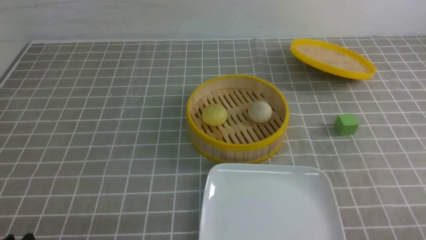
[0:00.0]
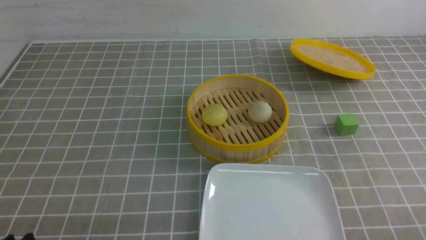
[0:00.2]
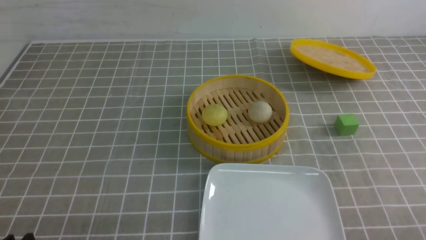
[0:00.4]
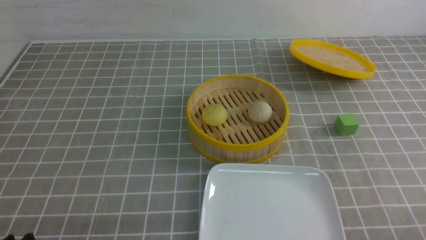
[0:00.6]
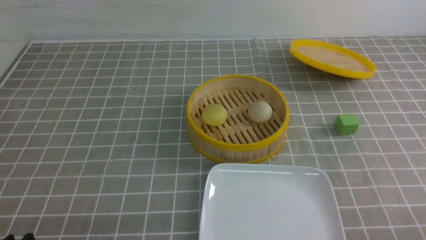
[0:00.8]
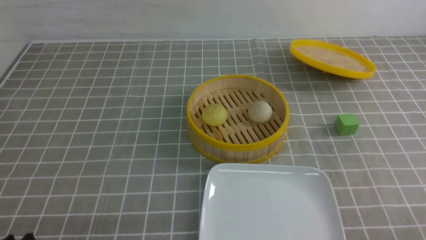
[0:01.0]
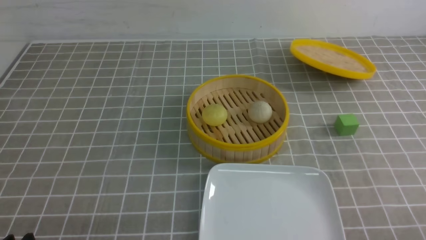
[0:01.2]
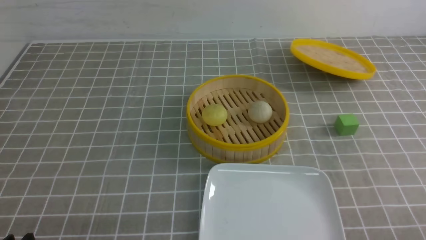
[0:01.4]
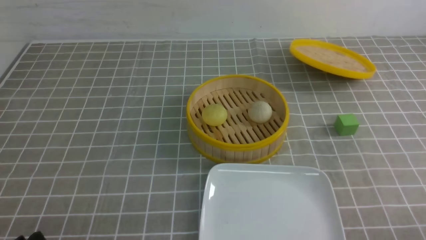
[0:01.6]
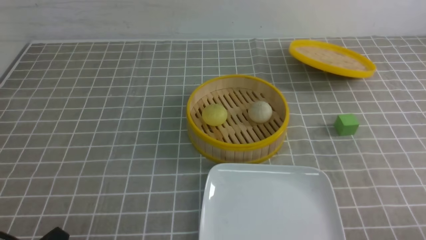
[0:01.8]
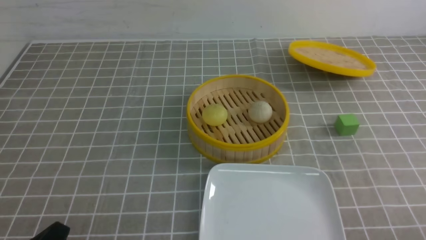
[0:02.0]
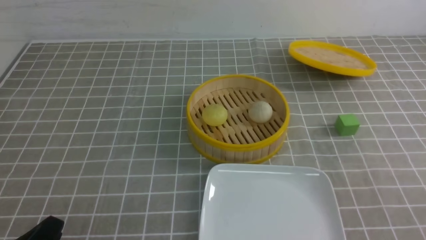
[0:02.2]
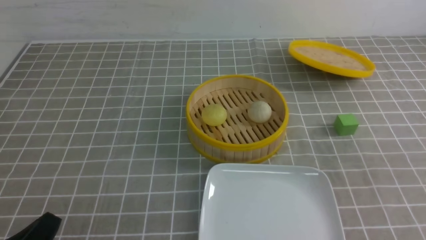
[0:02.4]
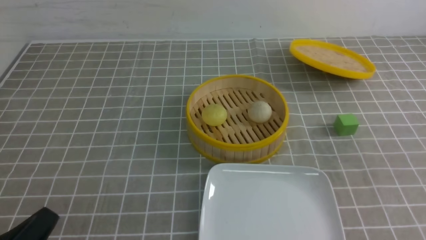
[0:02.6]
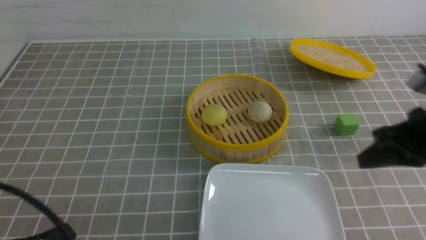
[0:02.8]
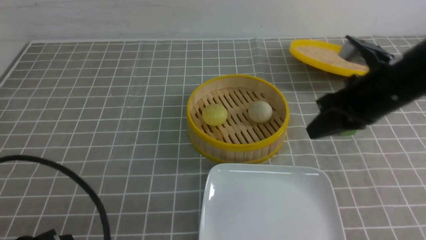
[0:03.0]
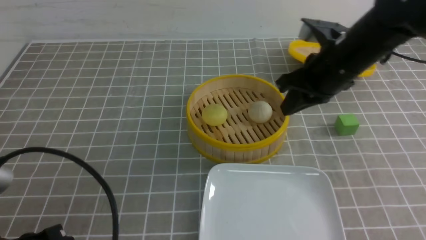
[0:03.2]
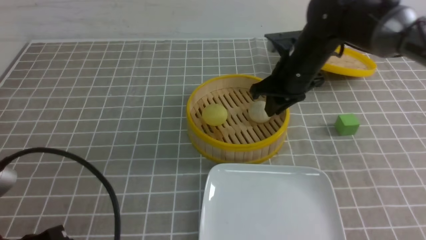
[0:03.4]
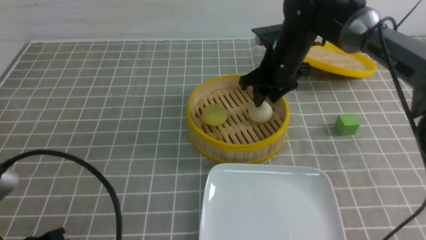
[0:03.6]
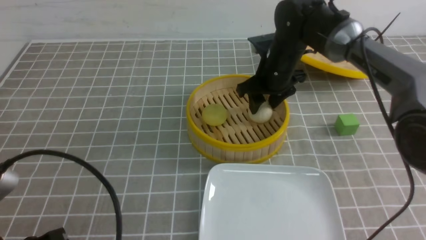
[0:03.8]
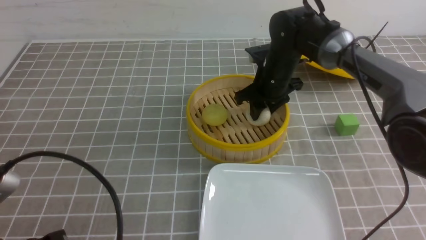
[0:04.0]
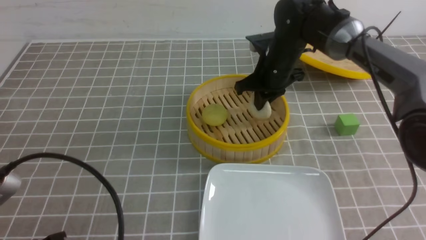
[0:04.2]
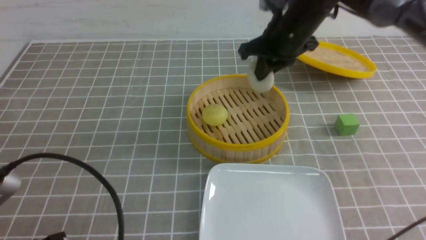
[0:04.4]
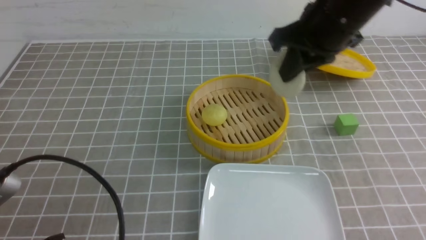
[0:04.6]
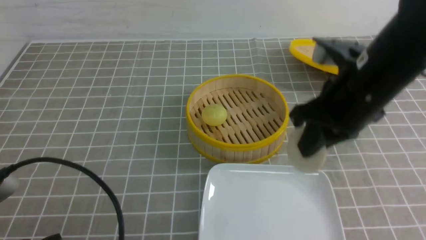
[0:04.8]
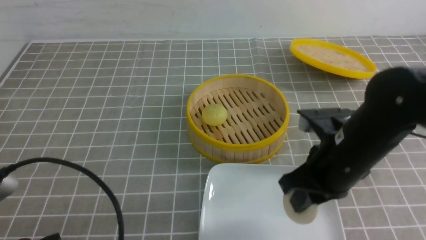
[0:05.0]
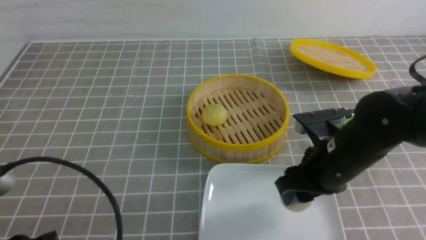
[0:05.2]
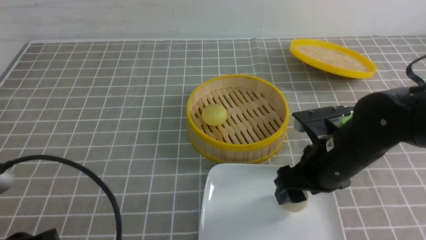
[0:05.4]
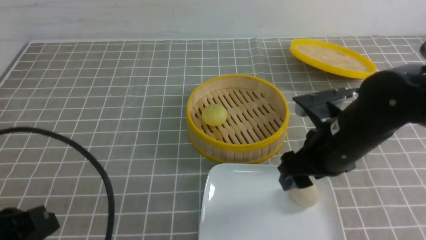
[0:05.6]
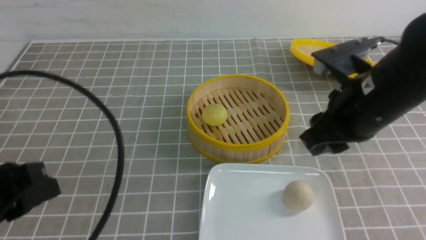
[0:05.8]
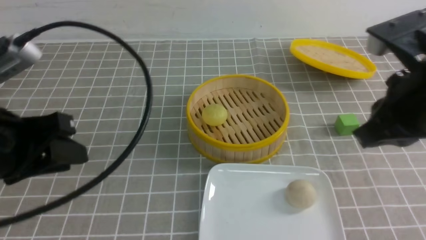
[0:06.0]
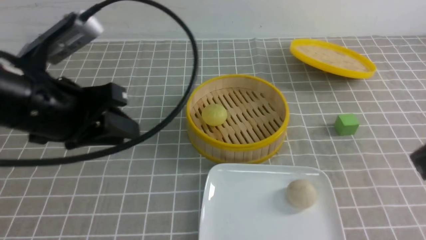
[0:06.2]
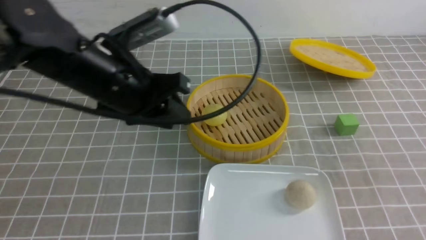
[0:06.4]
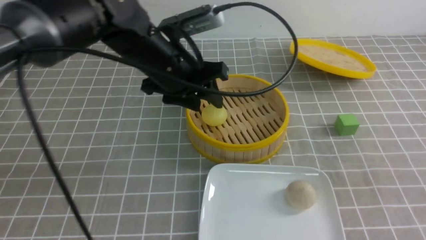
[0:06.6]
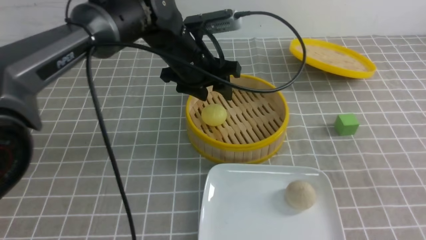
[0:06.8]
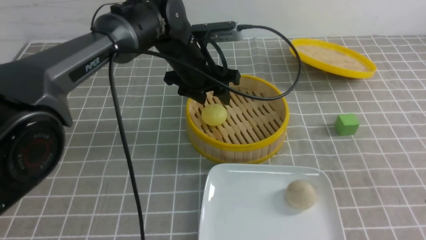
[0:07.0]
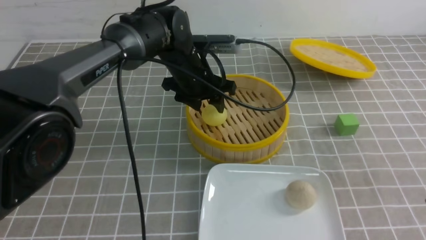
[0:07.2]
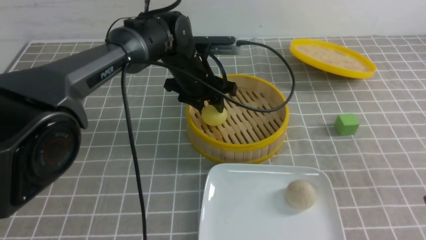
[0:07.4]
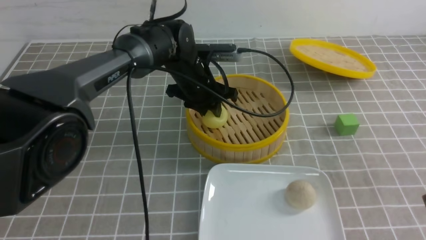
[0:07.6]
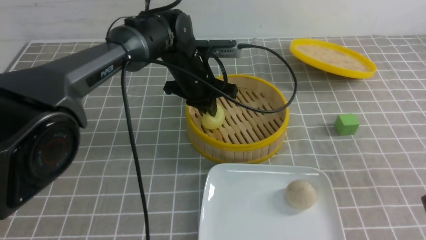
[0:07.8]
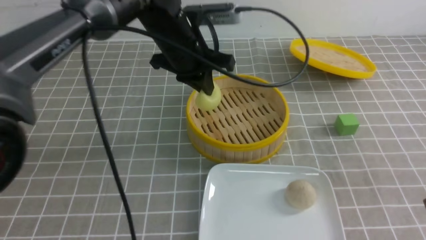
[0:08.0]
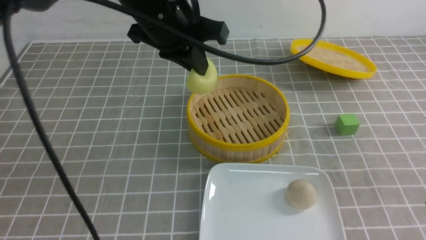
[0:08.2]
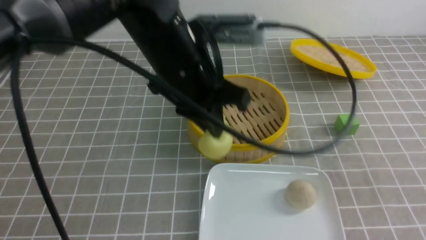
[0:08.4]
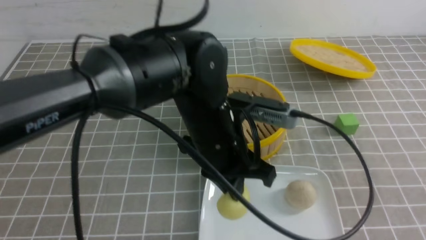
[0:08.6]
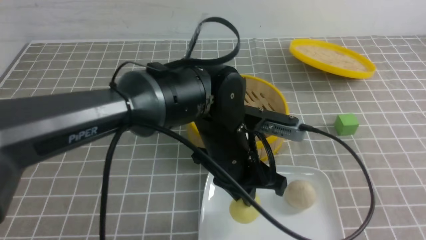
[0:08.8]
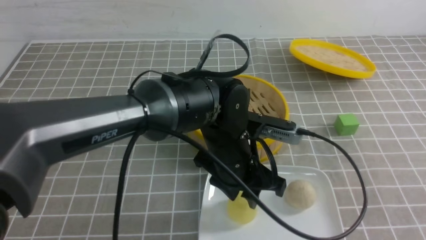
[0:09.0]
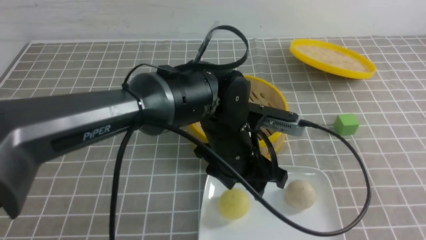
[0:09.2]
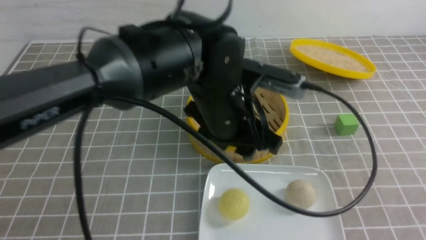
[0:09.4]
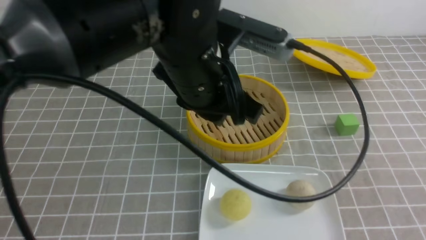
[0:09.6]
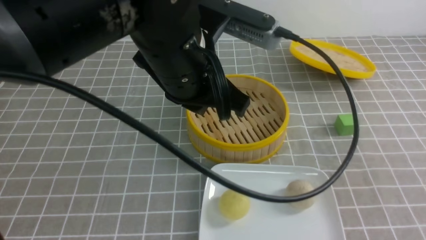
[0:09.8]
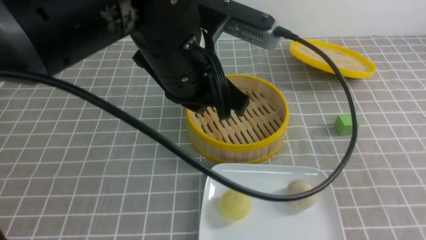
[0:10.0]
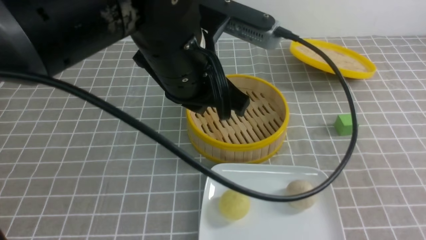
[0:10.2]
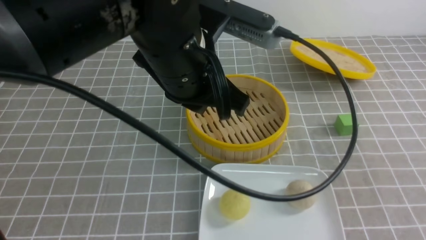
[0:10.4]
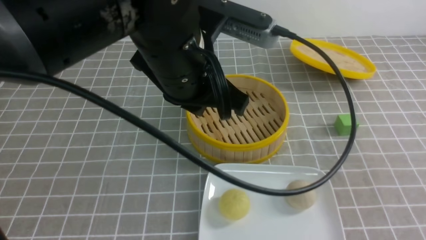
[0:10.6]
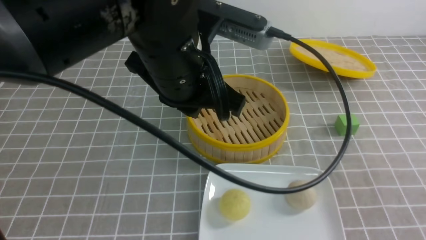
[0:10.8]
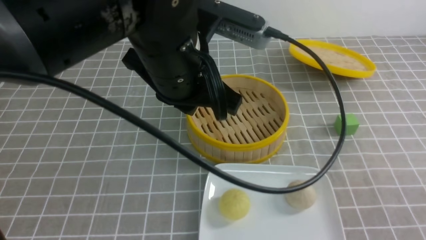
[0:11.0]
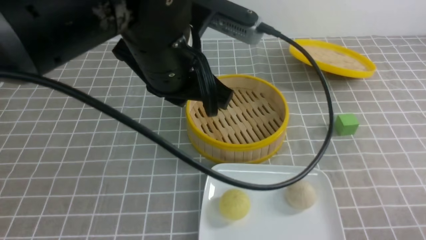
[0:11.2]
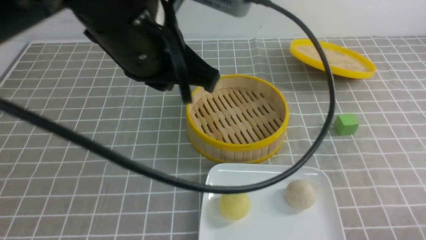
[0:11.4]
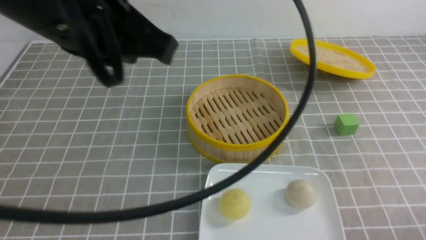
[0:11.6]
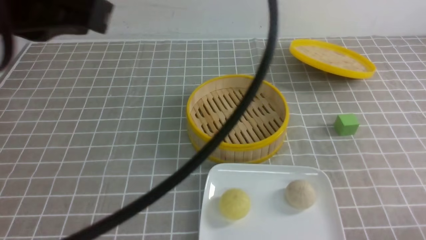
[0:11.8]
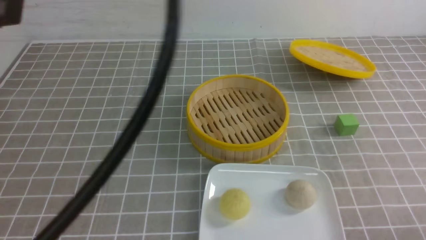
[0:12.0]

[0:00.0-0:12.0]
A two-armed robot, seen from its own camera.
Step, 0:00.0 to 0:04.2: use the right arm to grab the steamed stuffed bun that is closest to it.
Step, 0:04.4 to 0:05.4: use the right arm to put the steamed stuffed bun into the plate.
Step, 0:05.6 to 0:07.8: use the left arm to grab the steamed stuffed bun that is closest to it.
Step, 0:08.0 to 0:09.0: use the left arm to put the steamed stuffed bun into the plate.
0:01.6 to 0:03.0: The left gripper moves upward, roughly 5 cm, and closes up. Meanwhile the right gripper is displaced forward, upward and to the left by approximately 30 cm, and closes.
0:03.0 to 0:04.4: The right gripper moves forward and to the left, some 10 cm, and opens, then closes again.
0:04.4 to 0:06.0: The left gripper moves forward and upward, roughly 15 cm, and opens up. The right gripper travels backward and to the right by roughly 20 cm, and opens, then closes once more.
0:06.0 to 0:07.6: The left gripper heads forward, to the right and downward, covering about 35 cm, and opens, then closes again, while the right gripper travels backward and to the right by about 10 cm.
0:07.6 to 0:09.0: The right gripper is displaced backward and to the right by approximately 10 cm. The left gripper shifts roughly 15 cm backward, and closes, then reopens.
0:09.0 to 0:10.4: The left gripper is displaced upward by roughly 15 cm, and closes its fingers. Meanwhile the right gripper is displaced downward by roughly 5 cm.
0:10.4 to 0:12.0: The left gripper heads to the left, backward and upward, covering roughly 25 cm, while the right gripper is displaced downward by approximately 10 cm.

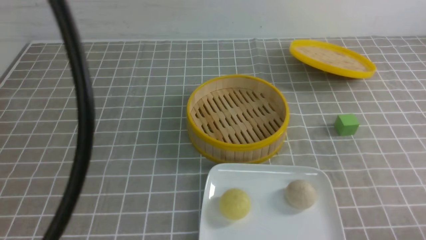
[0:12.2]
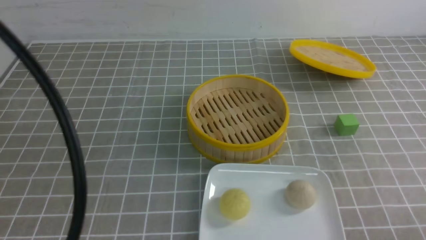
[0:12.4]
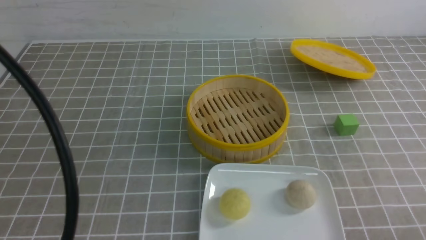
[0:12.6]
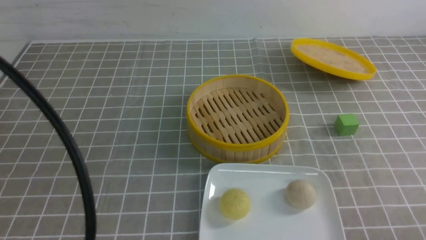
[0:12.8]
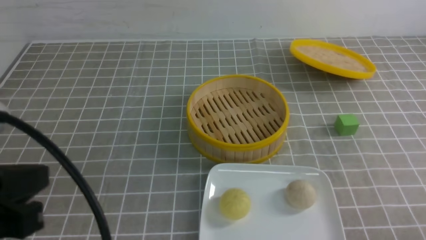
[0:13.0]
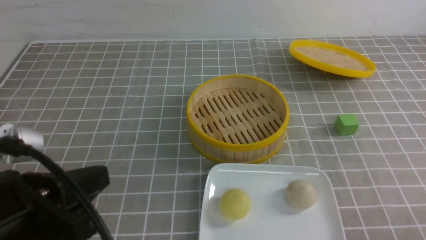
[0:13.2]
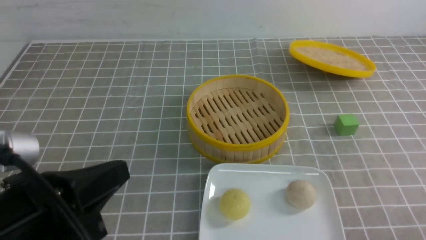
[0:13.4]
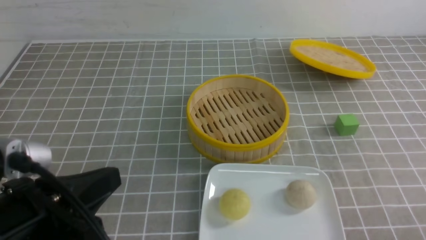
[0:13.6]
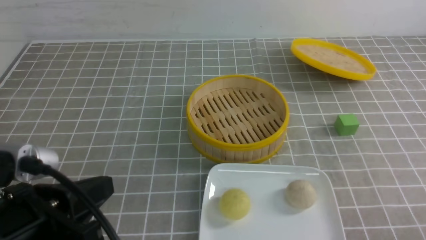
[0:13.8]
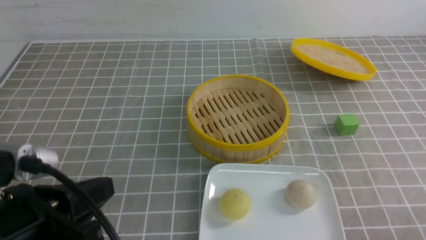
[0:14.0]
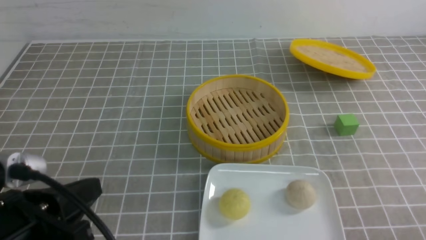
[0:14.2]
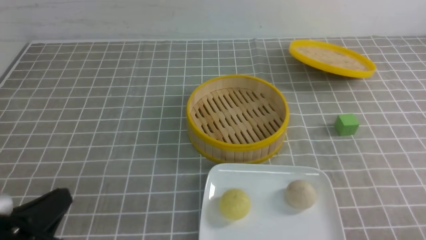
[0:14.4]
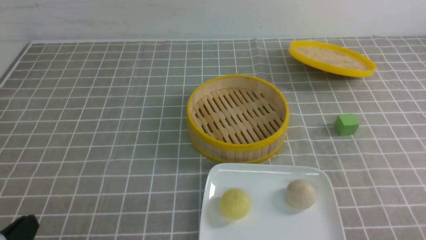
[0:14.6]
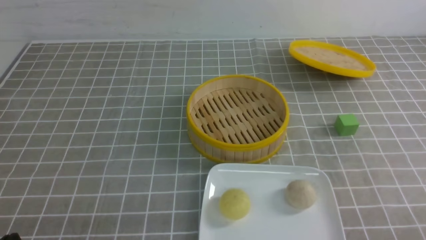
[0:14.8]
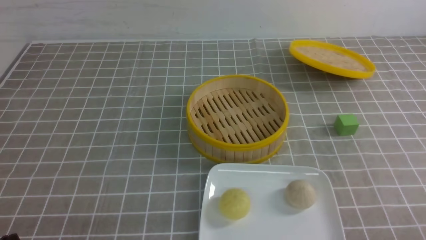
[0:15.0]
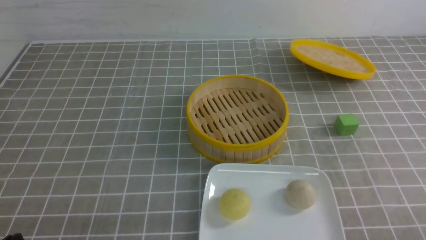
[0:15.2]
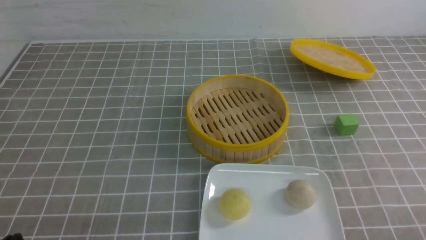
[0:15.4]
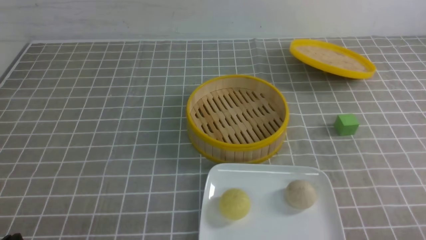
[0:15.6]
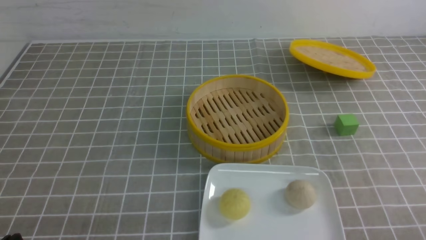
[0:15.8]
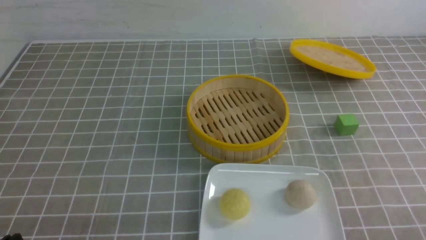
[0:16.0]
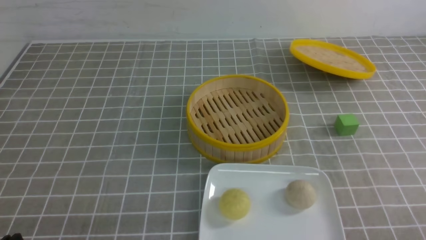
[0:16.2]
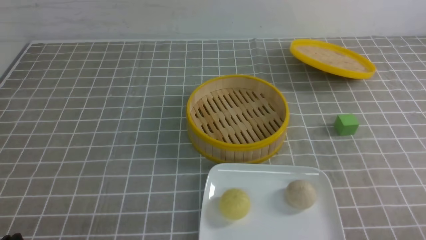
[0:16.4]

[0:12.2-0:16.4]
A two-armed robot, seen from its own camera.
0:12.2 to 0:13.6: The left gripper is displaced downward by some 20 cm.
0:13.6 to 0:15.0: The left gripper travels downward and to the left by roughly 15 cm.
0:15.0 to 0:16.4: Neither gripper changes place.
